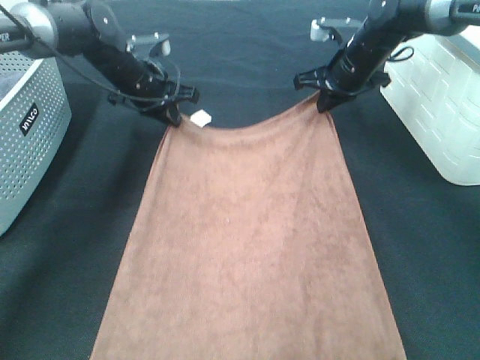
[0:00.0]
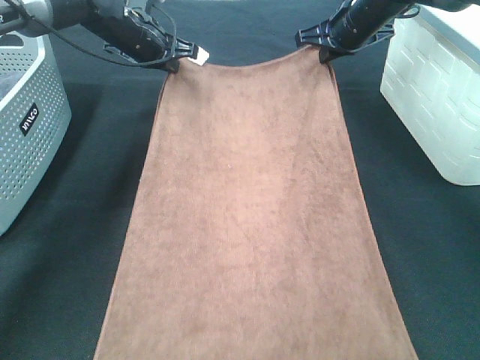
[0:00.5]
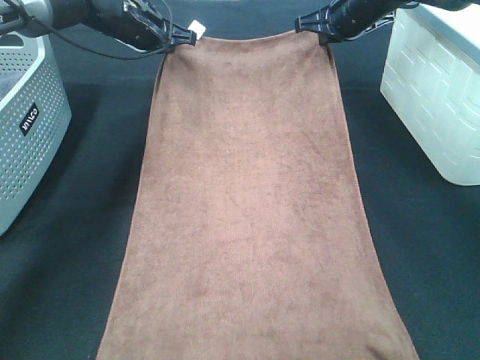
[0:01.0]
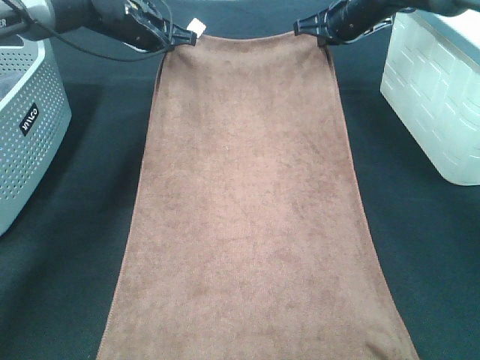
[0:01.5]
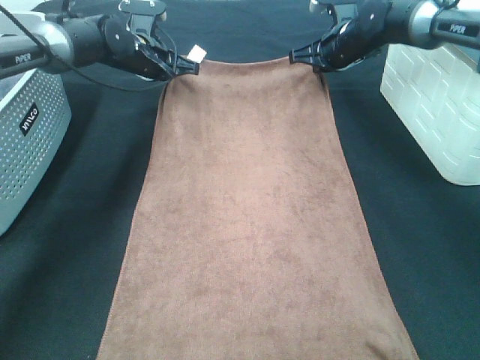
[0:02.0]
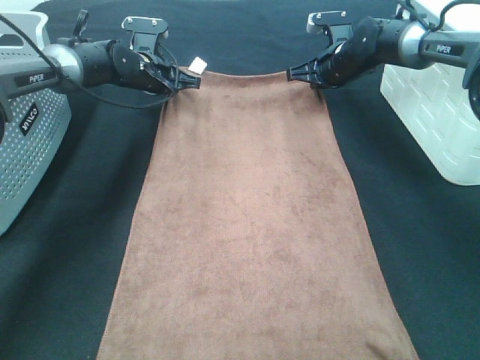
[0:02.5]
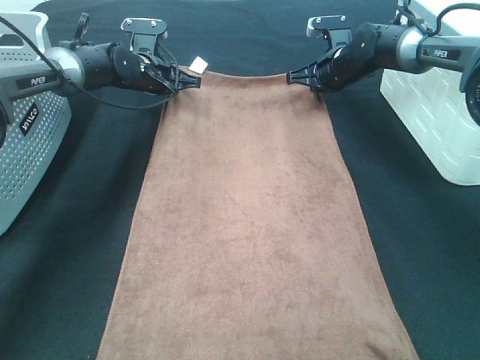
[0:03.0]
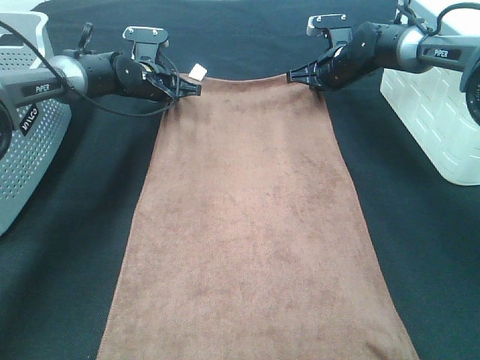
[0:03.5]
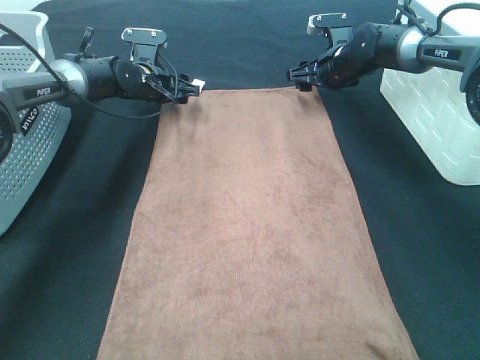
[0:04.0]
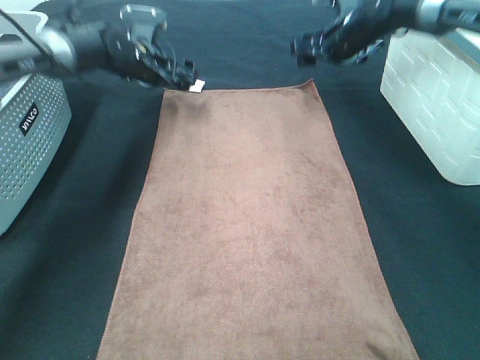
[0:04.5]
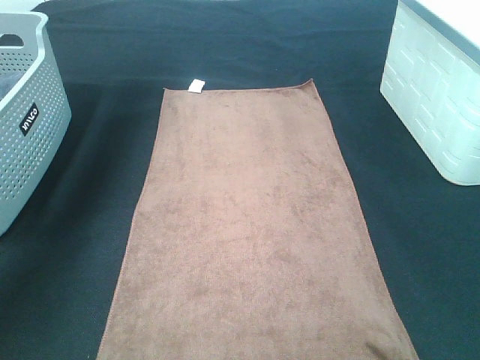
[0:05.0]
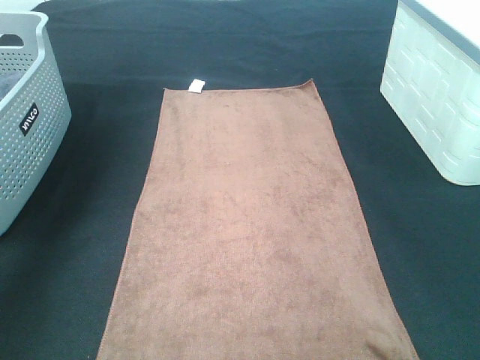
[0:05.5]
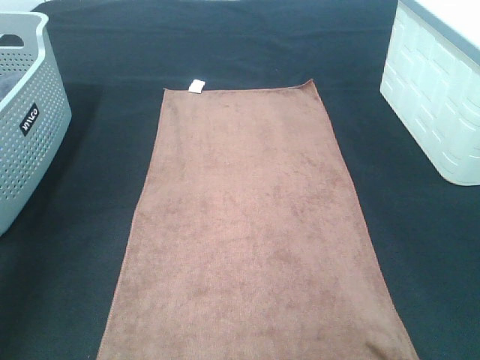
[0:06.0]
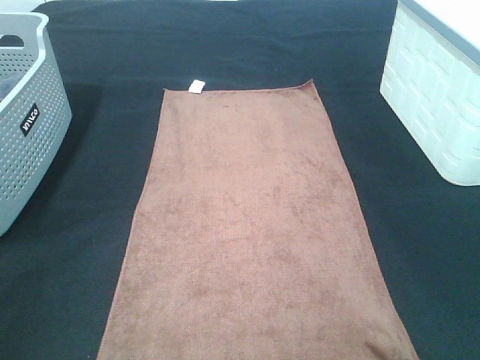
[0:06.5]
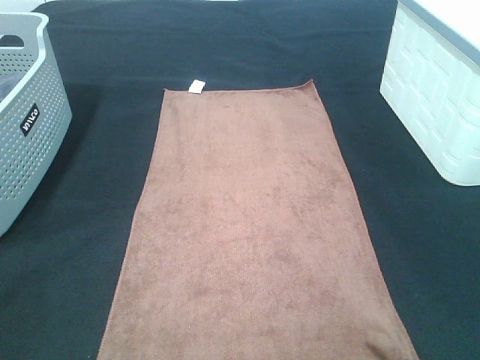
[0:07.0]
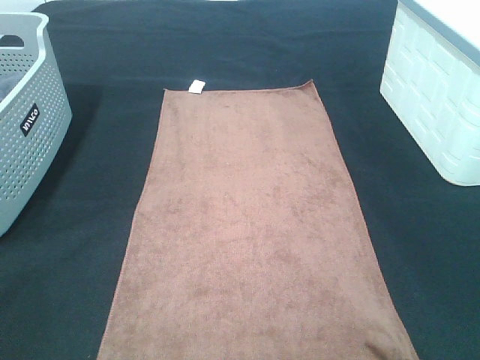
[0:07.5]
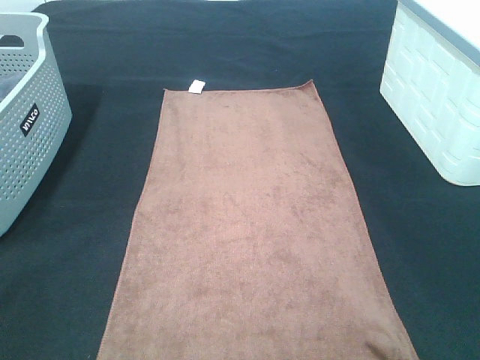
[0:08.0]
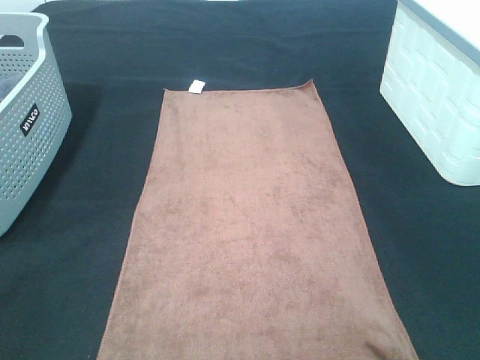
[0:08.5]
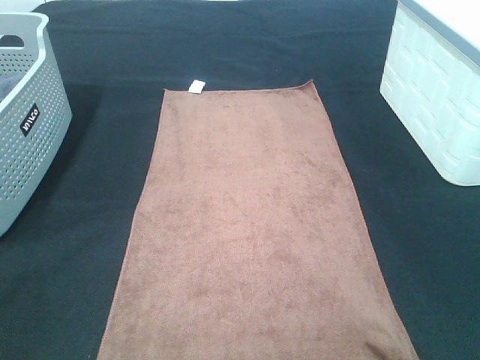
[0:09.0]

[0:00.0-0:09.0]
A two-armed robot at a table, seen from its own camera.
Task of the whole recording: Remove the towel and place it.
0:02.0 to 0:04.5: The left gripper opens, while the right gripper opens up.
0:04.5 to 0:07.0: The two grippers go some 60 cm backward.

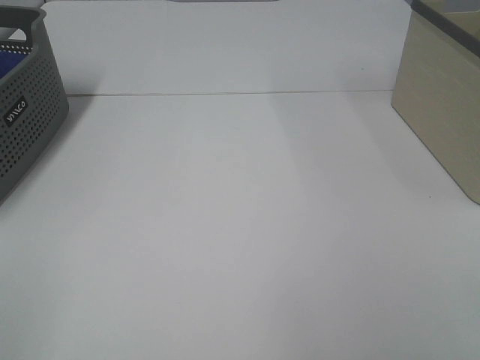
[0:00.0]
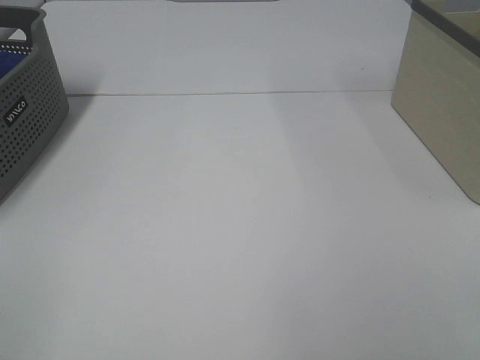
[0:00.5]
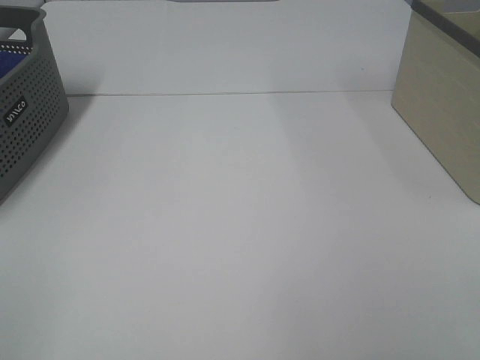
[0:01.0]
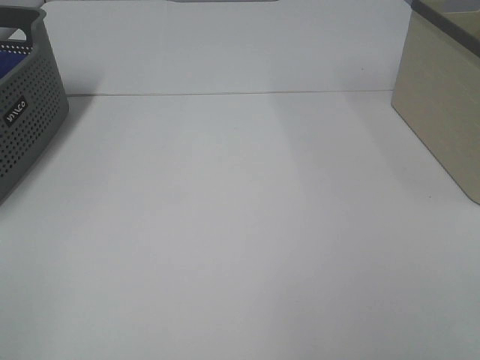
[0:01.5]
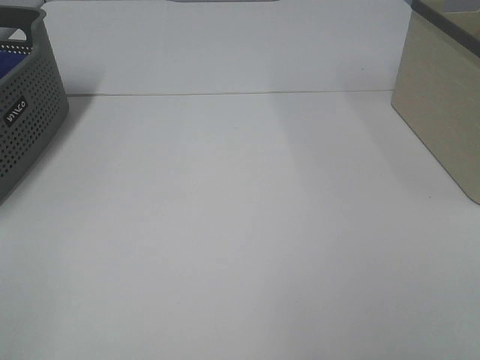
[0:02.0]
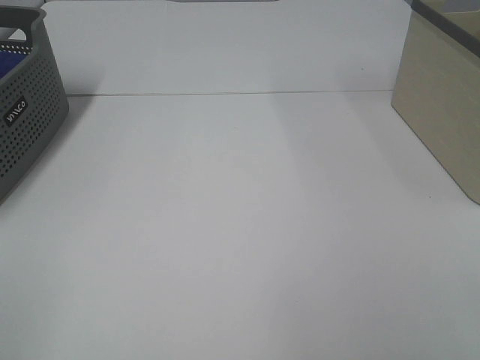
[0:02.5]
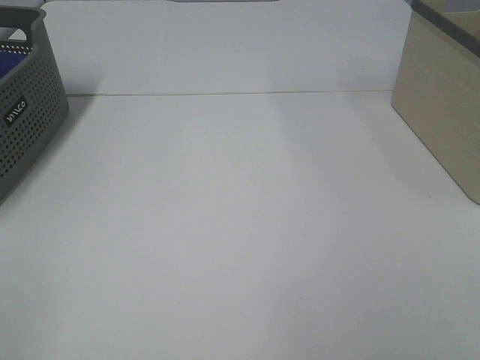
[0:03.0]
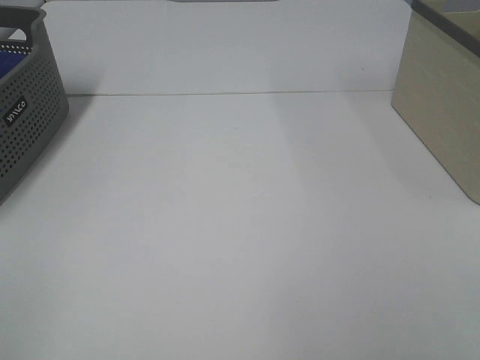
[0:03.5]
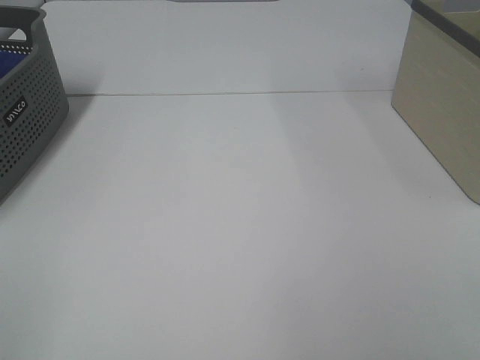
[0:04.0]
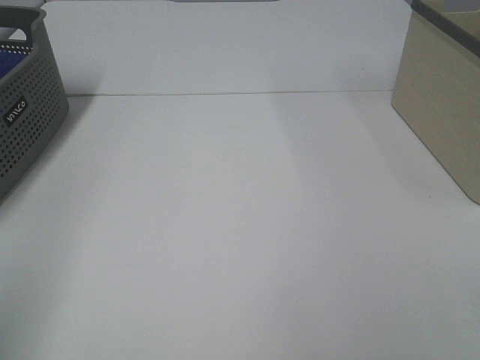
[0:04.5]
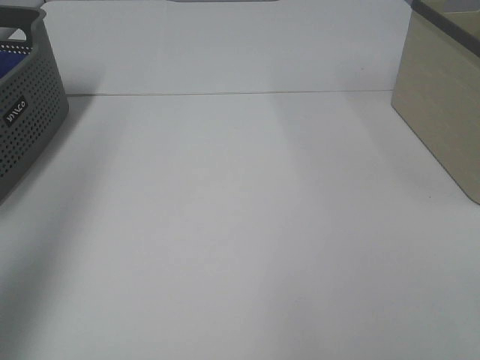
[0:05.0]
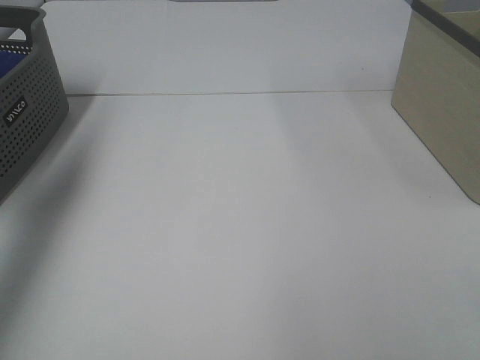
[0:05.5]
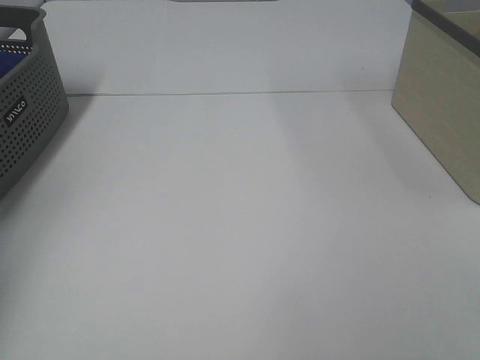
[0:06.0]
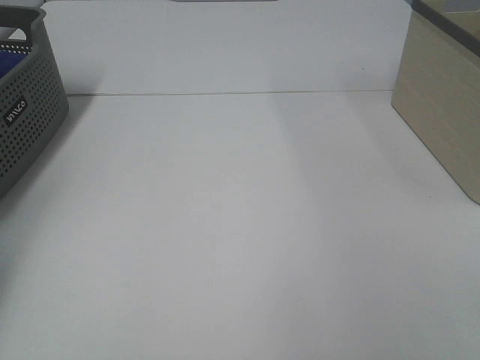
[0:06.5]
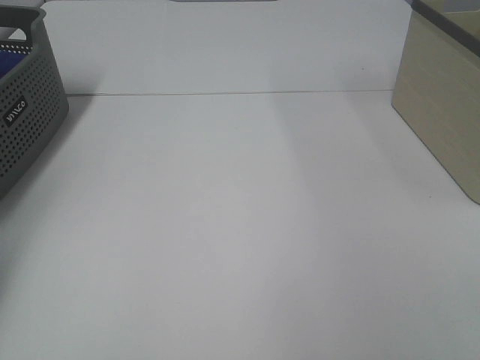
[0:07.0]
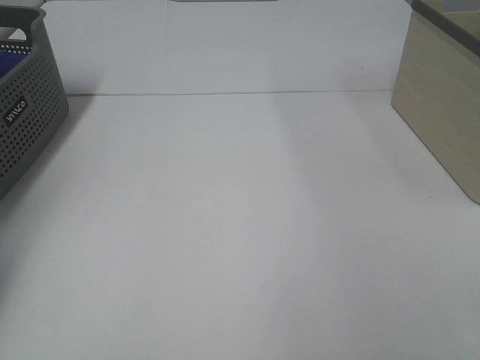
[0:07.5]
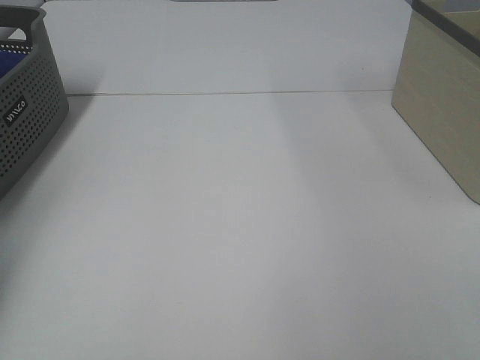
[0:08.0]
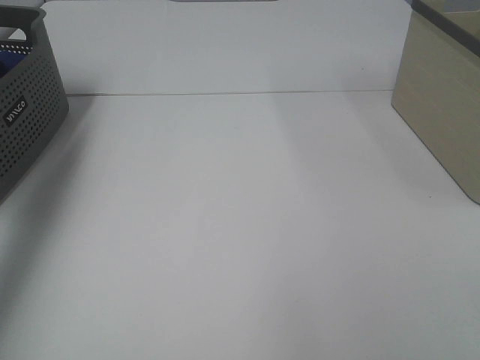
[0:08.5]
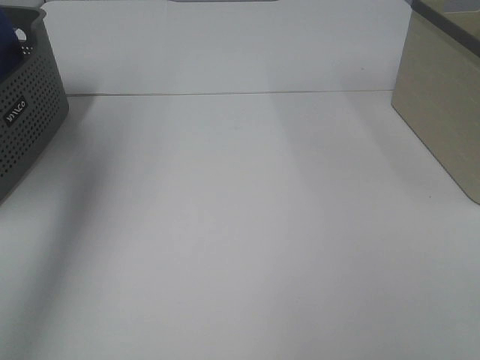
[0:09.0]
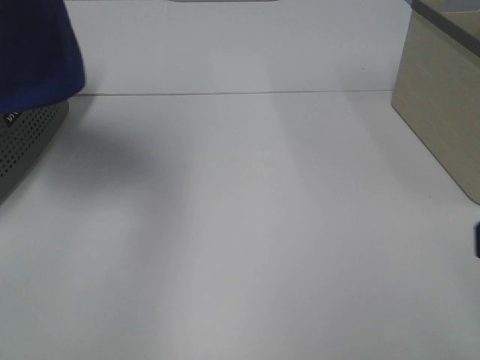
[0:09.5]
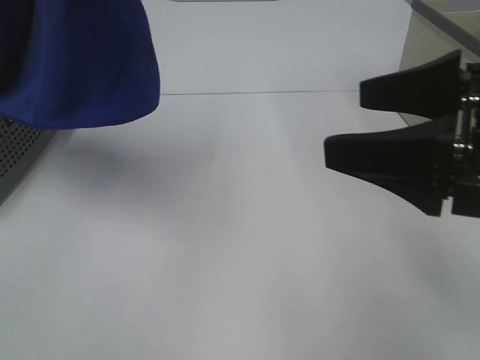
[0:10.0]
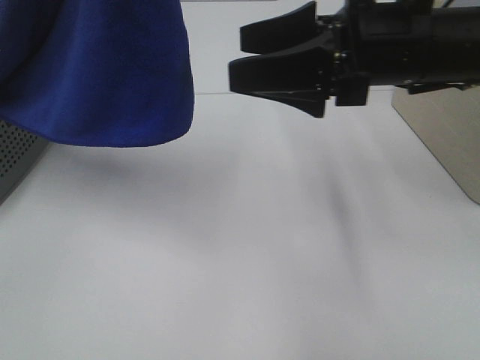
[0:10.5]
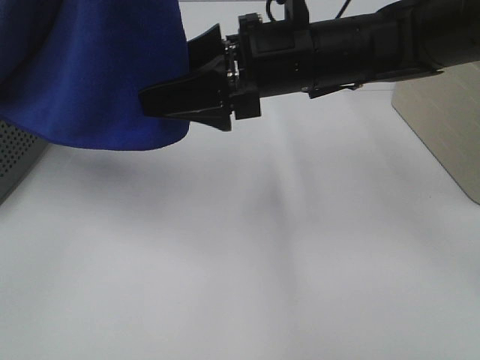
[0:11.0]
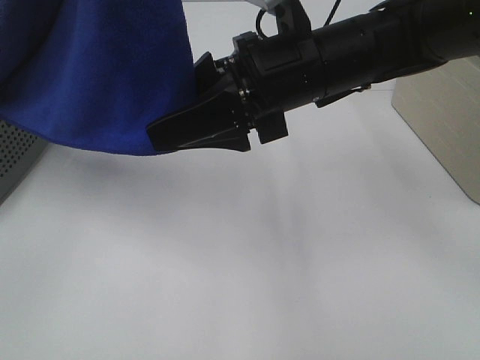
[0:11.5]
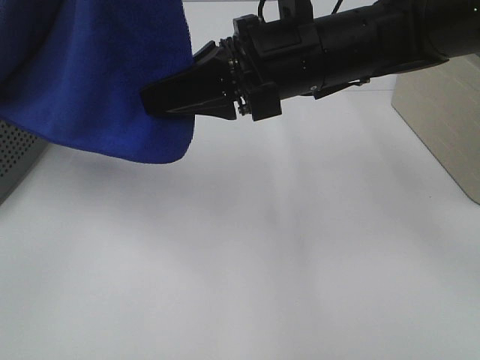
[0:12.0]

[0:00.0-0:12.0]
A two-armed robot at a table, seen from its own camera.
Task of the whole recording: Remove the towel and place it.
Step, 0:08.5 to 0:11.5: Right hand: grab a corner of the blue towel and straighten it.
0:00.0 to 0:04.0: Neither gripper changes place.
0:04.0 to 0:06.0: The left gripper travels forward by approximately 40 cm.
0:08.0 to 0:10.0: The right gripper is displaced forward and to the left by roughly 20 cm. The left gripper heads upward, to the right and backward, covering about 50 cm.
0:10.0 to 0:12.0: The right gripper shifts roughly 20 cm to the left and forward, and closes up.

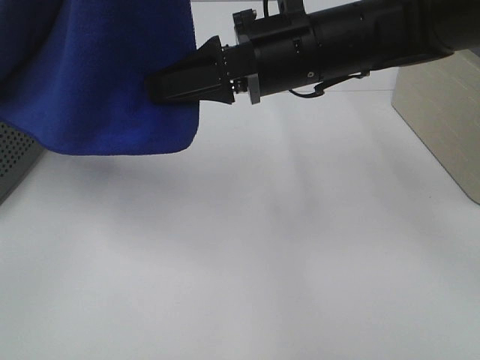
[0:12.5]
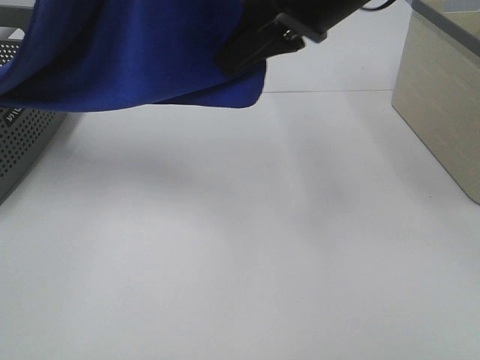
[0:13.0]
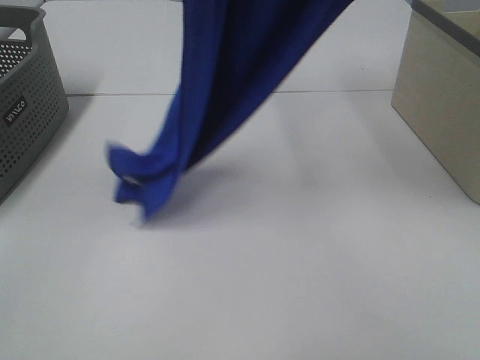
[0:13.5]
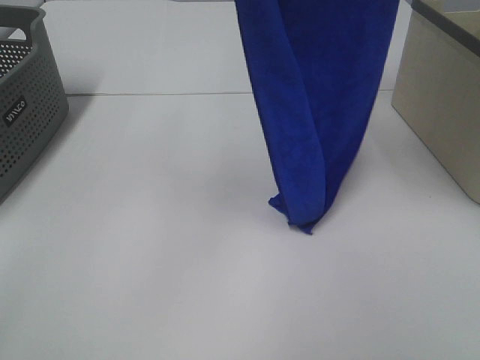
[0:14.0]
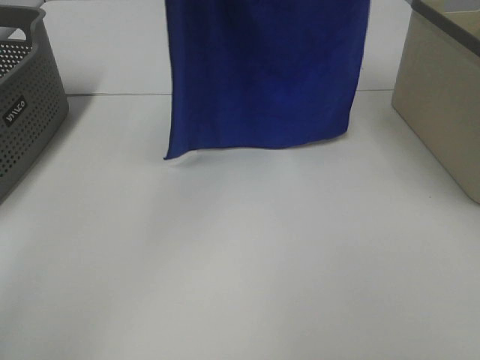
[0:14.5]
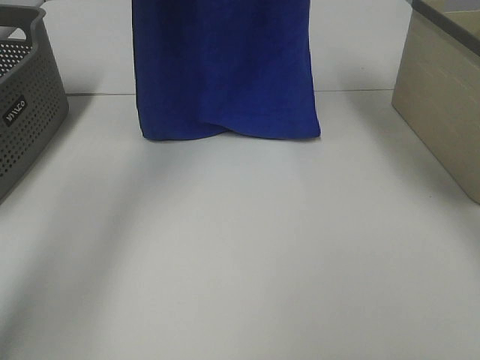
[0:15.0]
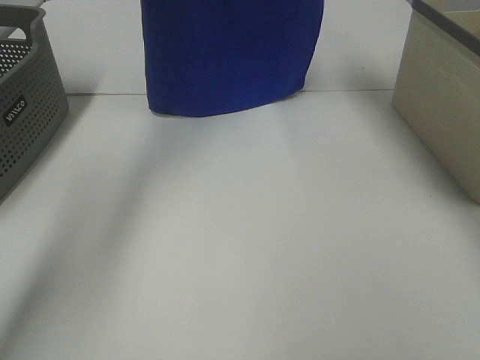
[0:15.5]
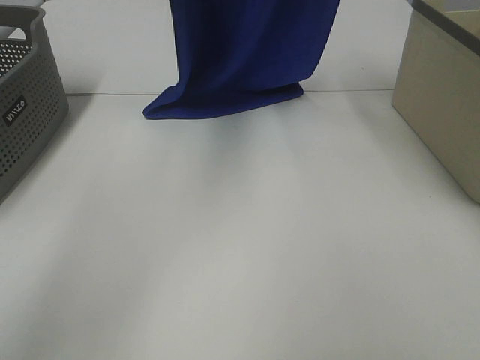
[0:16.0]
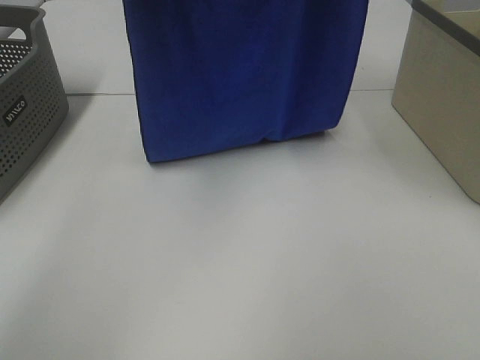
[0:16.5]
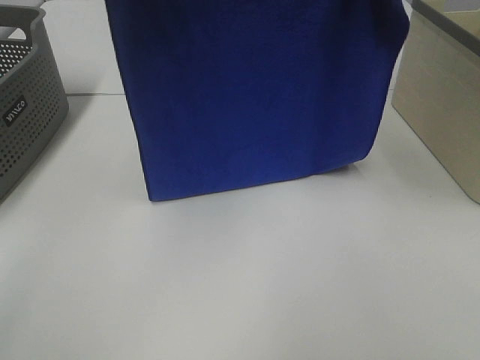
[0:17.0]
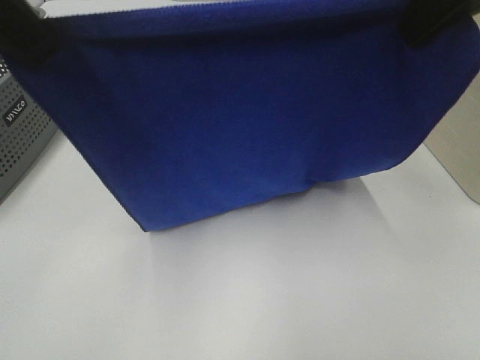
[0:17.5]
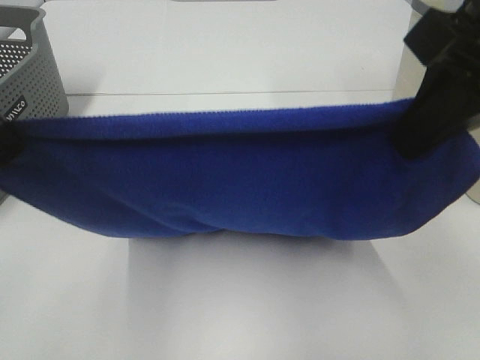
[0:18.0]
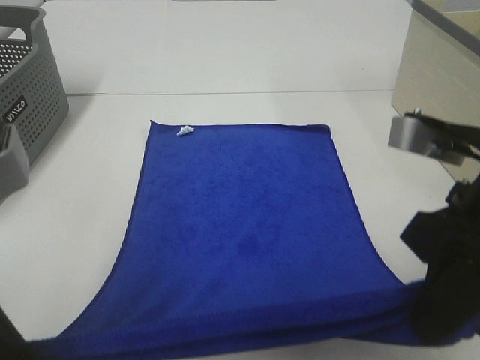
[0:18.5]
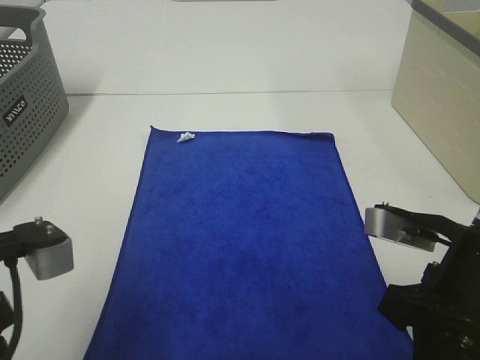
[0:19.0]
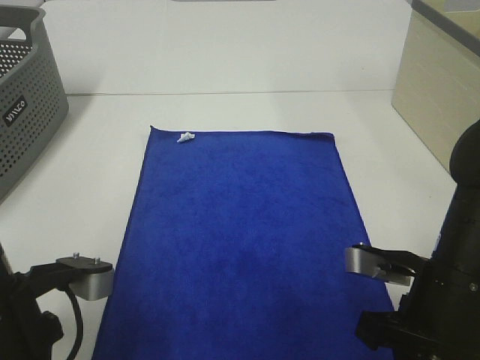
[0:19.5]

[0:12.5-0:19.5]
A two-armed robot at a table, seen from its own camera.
Task of the whole recording: Remove the towel and place it.
Step, 0:12.5 to 0:16.0: Left hand: spread the blue towel flat on the table.
Step, 0:12.5 to 0:16.0: Right hand: spread the blue towel flat on the table.
0:12.5 to 0:14.5: The left gripper moves forward, about 15 cm, while the right gripper travels upward by approximately 25 cm.
0:14.5 to 0:16.0: The left gripper is displaced forward by roughly 5 cm.
0:16.0 to 0:17.5: The two grippers go about 20 cm backward.
0:17.5 to 0:19.5: The grippers both shift downward by approximately 25 cm.
